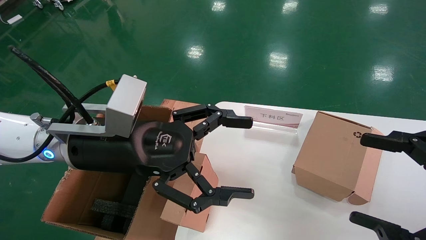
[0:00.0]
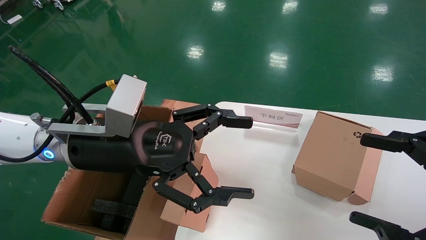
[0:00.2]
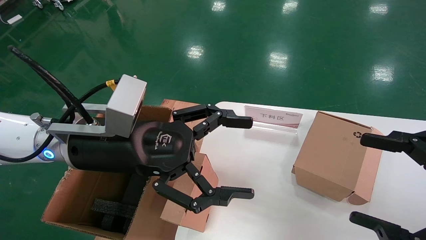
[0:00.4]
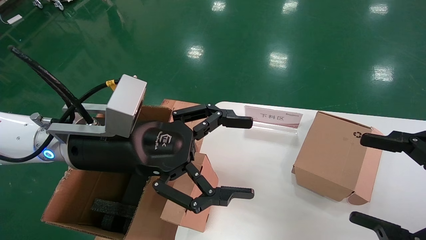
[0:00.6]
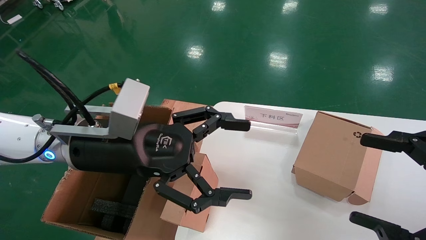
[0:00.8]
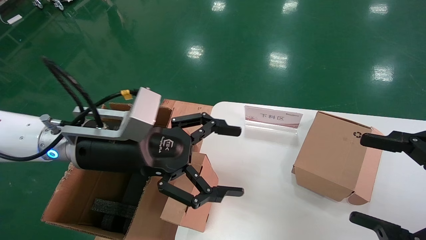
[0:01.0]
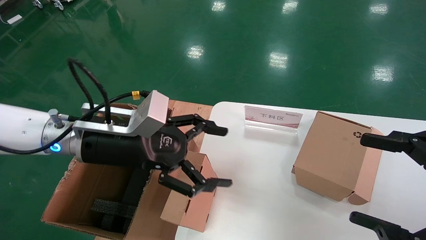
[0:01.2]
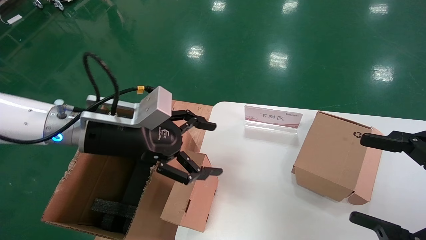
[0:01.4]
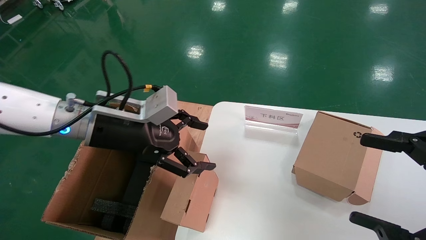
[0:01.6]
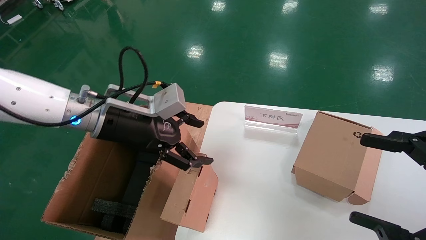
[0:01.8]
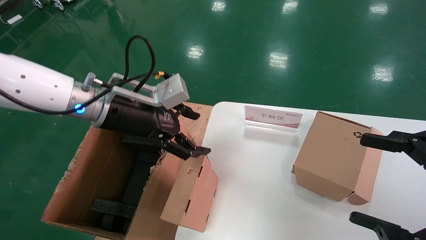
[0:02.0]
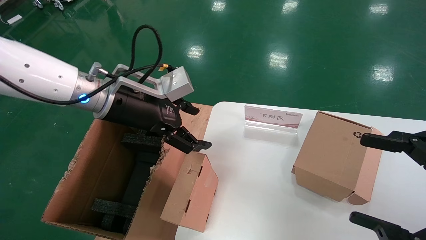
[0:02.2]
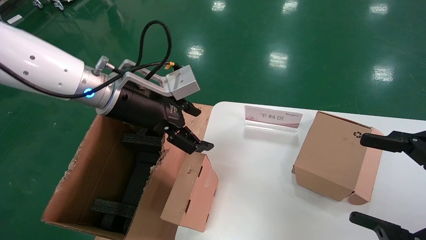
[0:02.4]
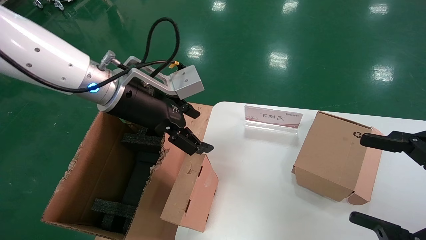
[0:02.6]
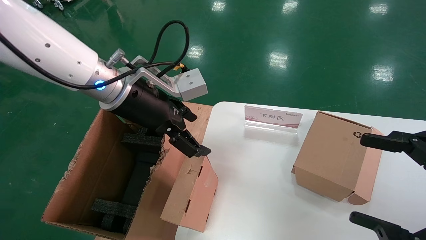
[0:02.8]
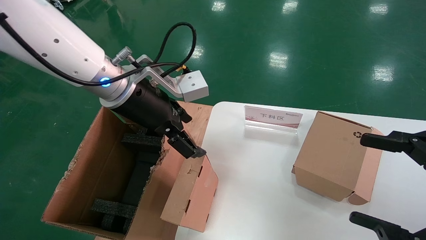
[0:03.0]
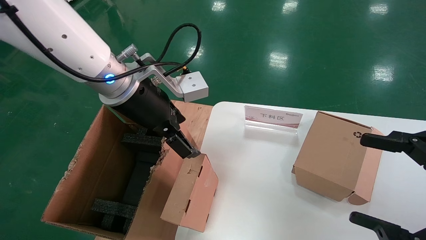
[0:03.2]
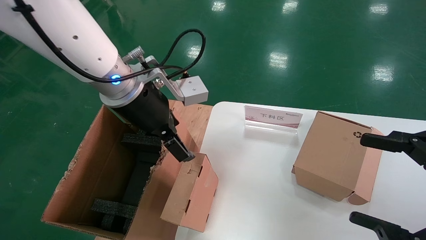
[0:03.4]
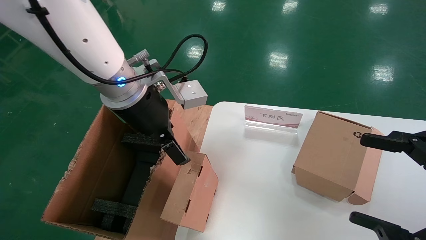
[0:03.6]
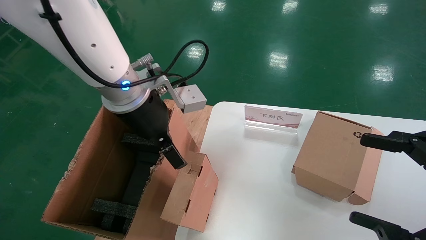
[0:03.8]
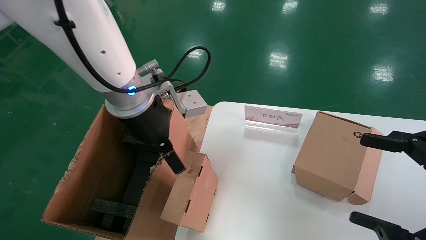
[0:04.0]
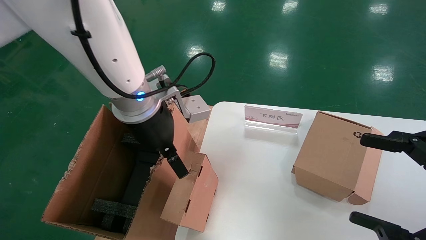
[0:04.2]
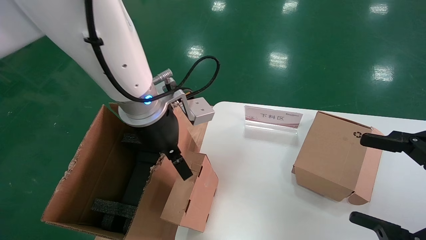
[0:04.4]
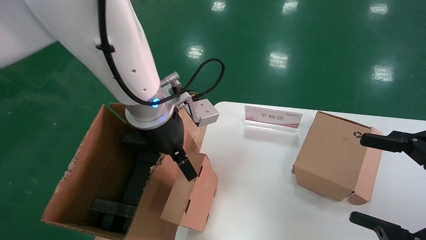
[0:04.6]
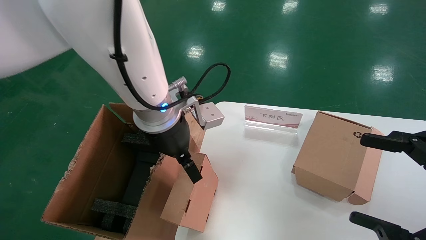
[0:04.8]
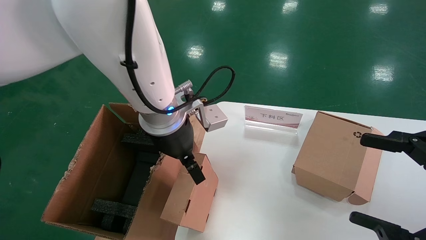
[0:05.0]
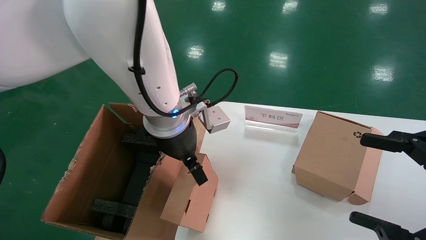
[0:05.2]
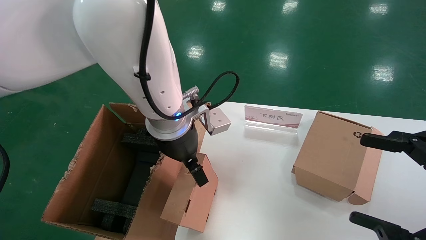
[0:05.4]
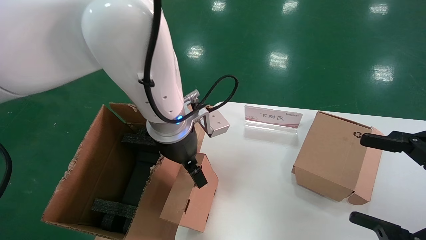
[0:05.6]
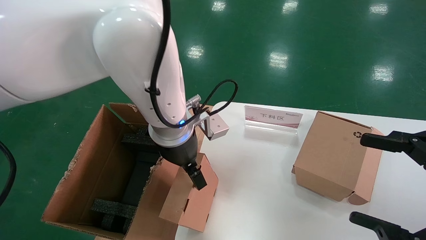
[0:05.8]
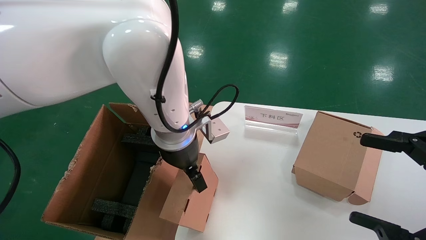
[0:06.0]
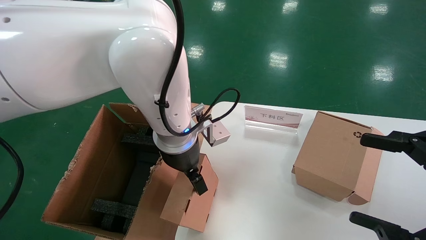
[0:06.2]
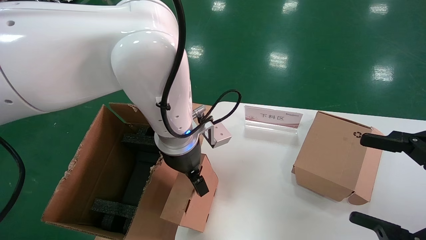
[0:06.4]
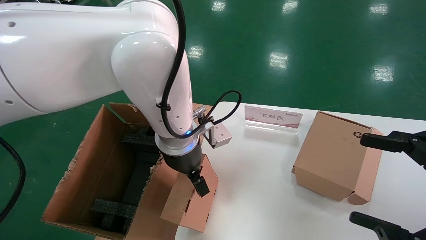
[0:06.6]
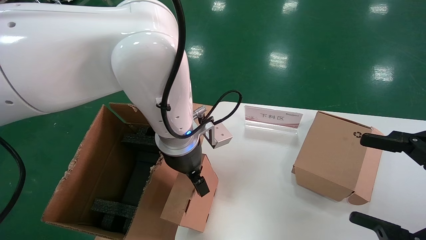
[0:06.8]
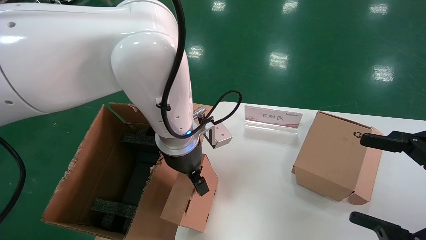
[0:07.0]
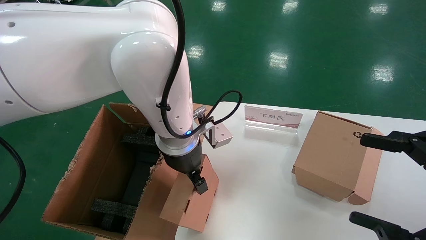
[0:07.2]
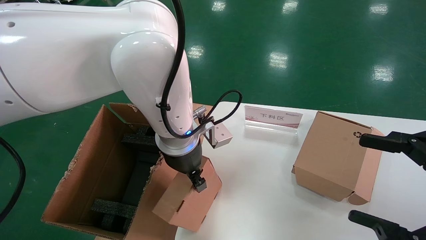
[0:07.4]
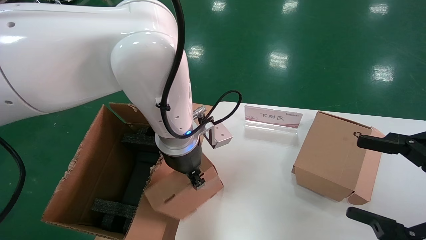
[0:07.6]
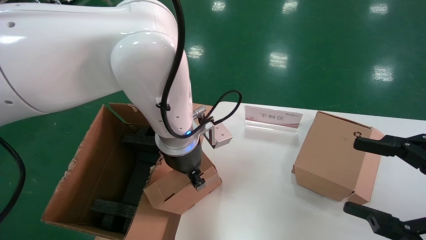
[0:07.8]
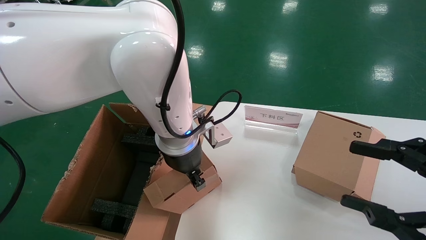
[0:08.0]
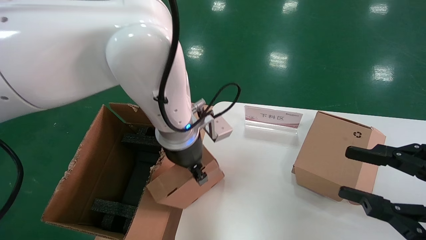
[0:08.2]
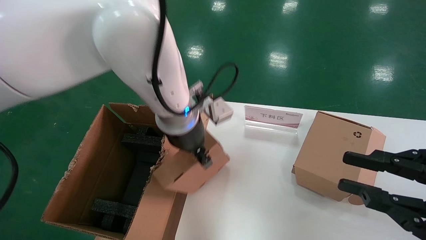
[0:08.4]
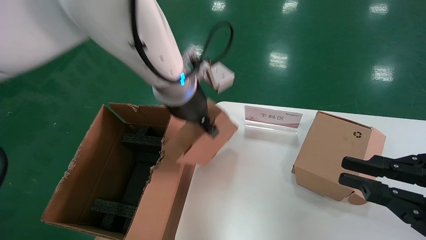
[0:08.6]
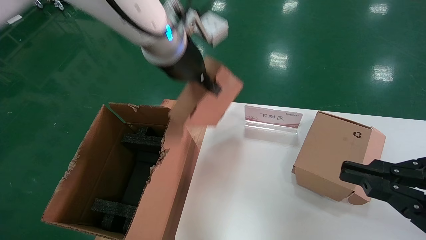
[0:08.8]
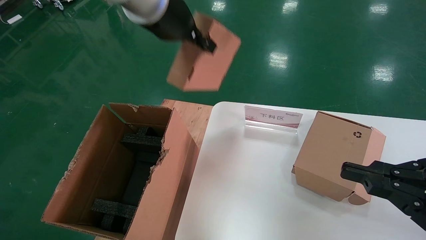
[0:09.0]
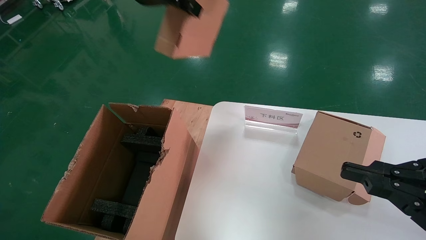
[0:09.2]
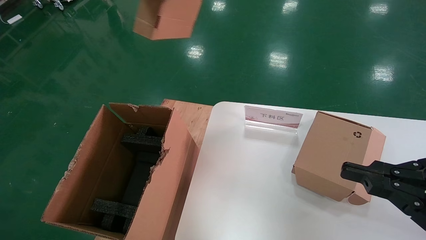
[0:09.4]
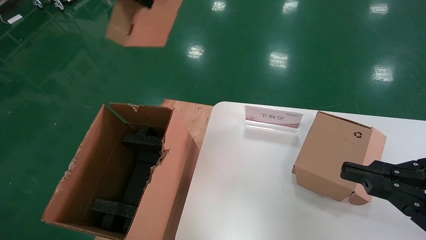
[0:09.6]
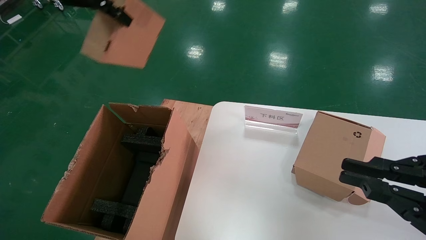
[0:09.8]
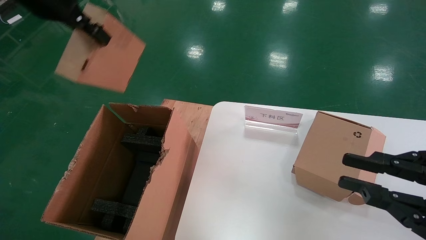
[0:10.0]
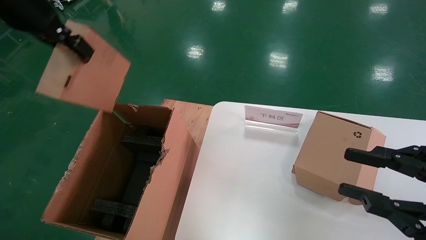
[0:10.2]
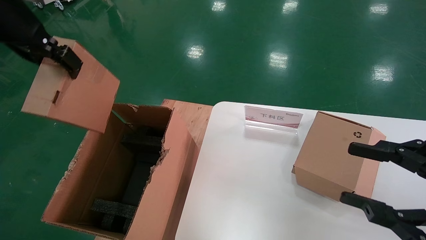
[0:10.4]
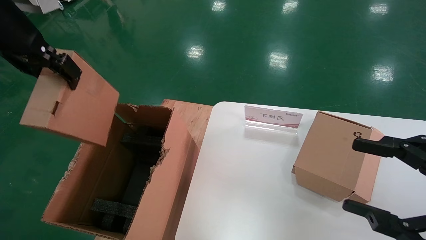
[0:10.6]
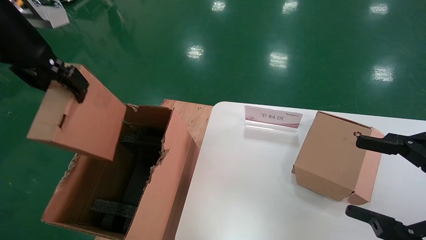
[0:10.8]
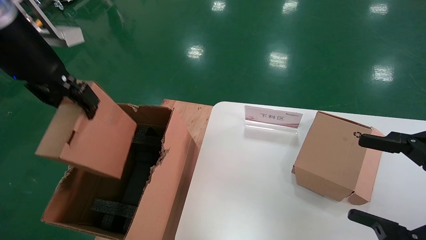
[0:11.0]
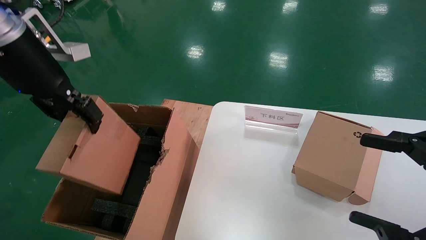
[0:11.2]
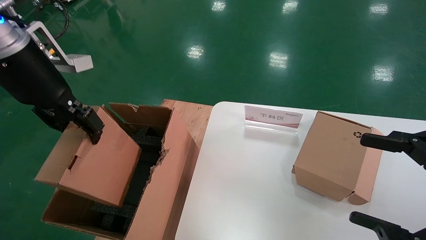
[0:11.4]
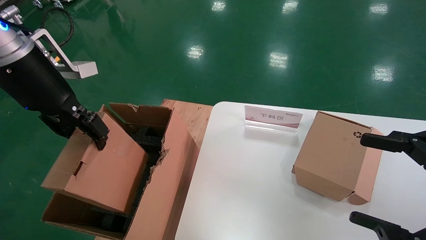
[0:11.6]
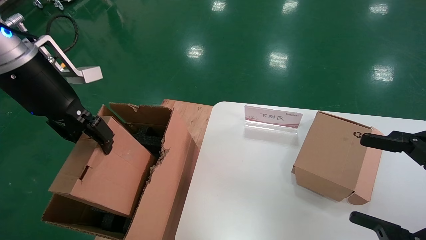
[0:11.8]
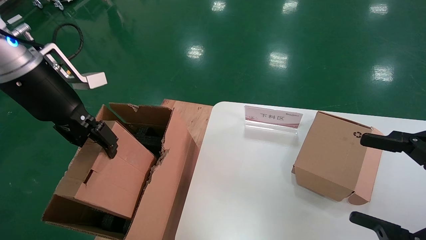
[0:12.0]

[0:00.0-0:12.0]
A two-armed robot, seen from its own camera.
Task of the whole recording: put the box on the table into the big box.
Step, 0:00.0 to 0:07.8: Grasp the paper box.
0:00.0 to 0:01.6: The left gripper heads forward, covering some 5 cm.
0:01.6 to 0:03.0: The left gripper shifts approximately 10 cm upward and to the right.
0:03.0 to 0:04.4: The left gripper changes place by about 5 cm.
0:04.4 to 0:06.0: The left gripper travels downward by approximately 5 cm.
0:06.0 to 0:07.6: The left gripper closes.
0:07.6 to 0:09.0: The right gripper closes up, while the left gripper is displaced upward by approximately 20 cm, and closes.
0:09.0 to 0:10.4: The left gripper shifts some 20 cm to the left and backward.
0:10.4 to 0:12.0: The right gripper opens. The left gripper shifts approximately 10 cm downward.

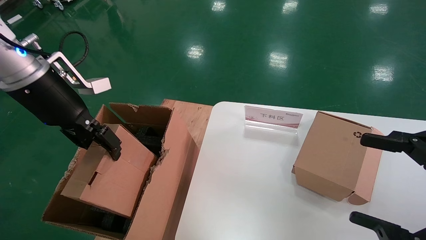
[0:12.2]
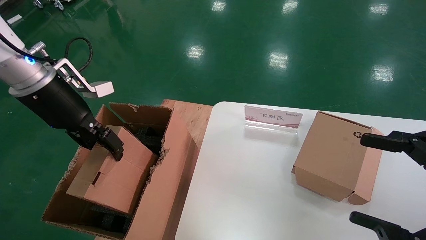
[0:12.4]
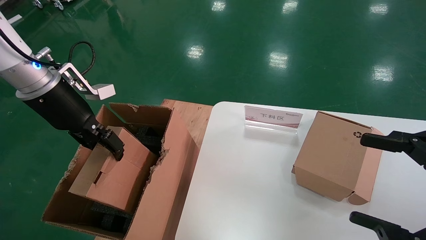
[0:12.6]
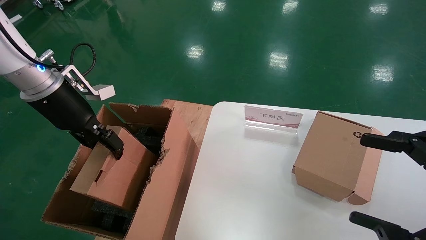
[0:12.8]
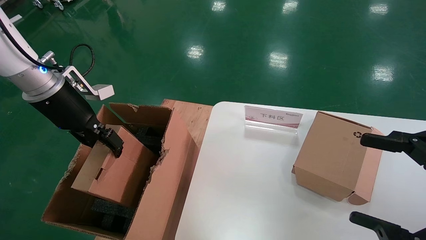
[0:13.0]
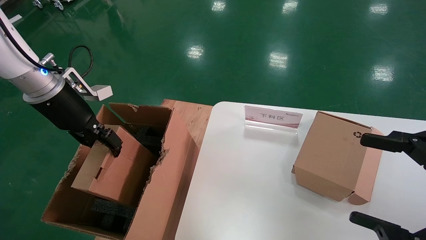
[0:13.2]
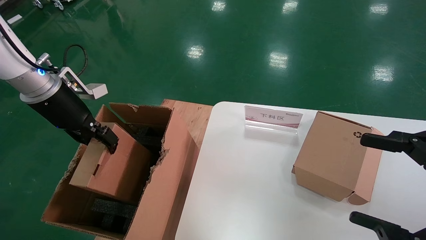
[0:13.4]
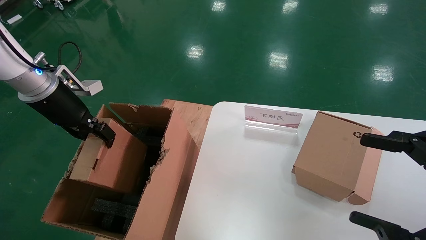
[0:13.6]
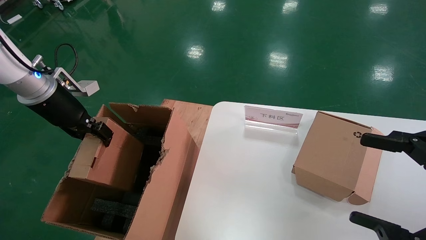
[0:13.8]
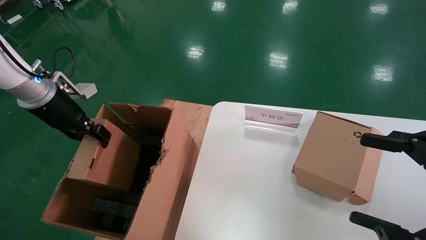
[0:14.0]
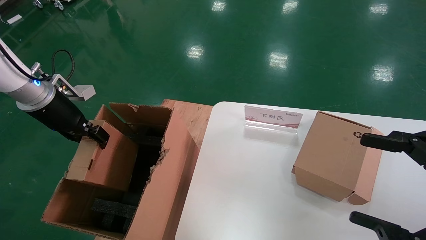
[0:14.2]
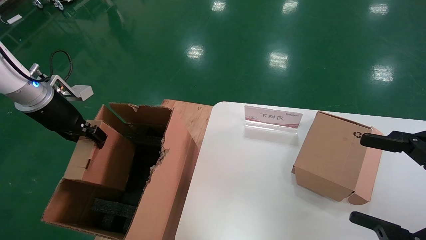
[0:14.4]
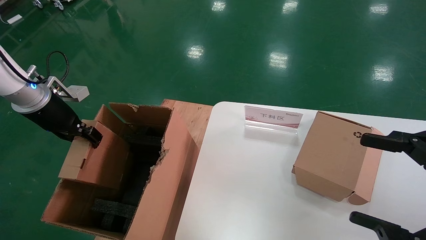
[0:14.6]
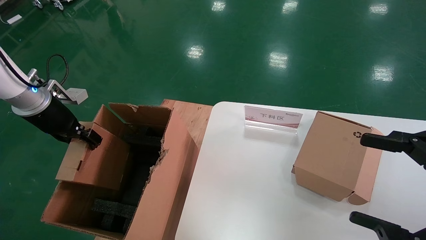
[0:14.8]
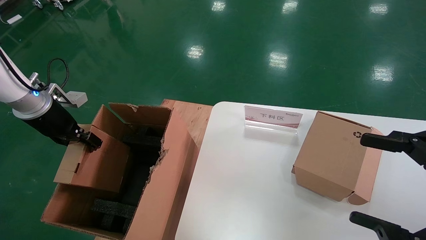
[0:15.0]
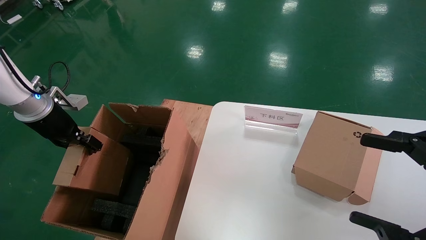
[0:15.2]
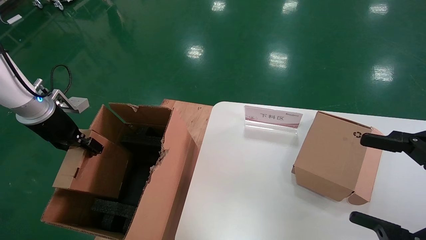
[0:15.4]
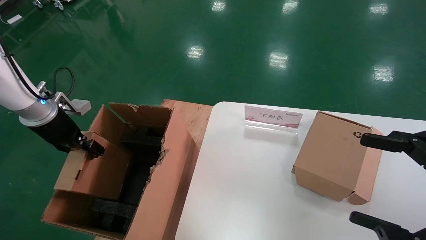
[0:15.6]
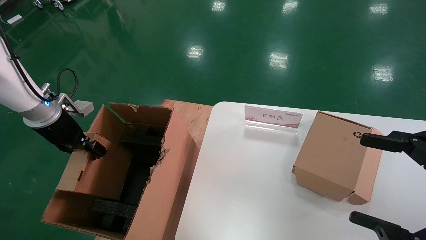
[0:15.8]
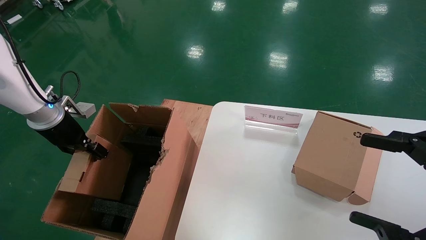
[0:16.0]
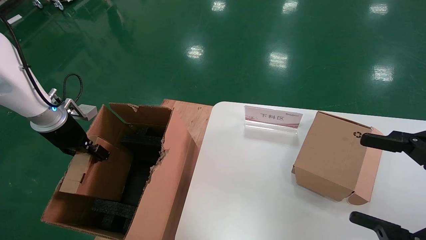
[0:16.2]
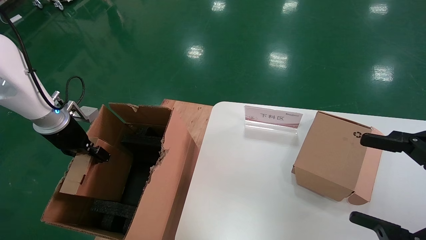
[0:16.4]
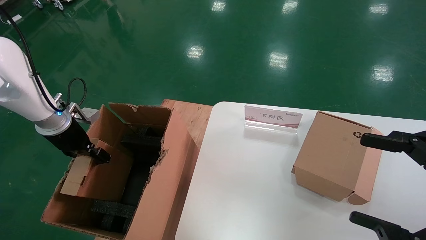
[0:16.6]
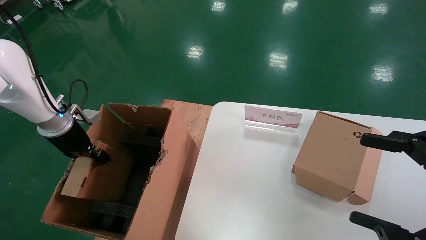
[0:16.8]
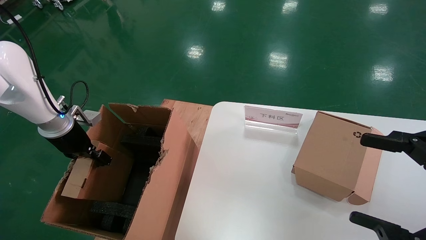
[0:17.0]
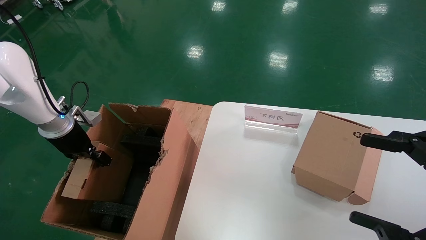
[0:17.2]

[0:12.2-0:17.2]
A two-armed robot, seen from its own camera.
Task of the whole recording: put the box on the table into the big box.
0:12.2 to 0:13.8: The left gripper is displaced to the left by some 5 cm.
0:13.8 to 0:15.6: The left gripper heads downward, covering about 5 cm.
0:15.6 to 0:17.2: The grippers move only a little.
